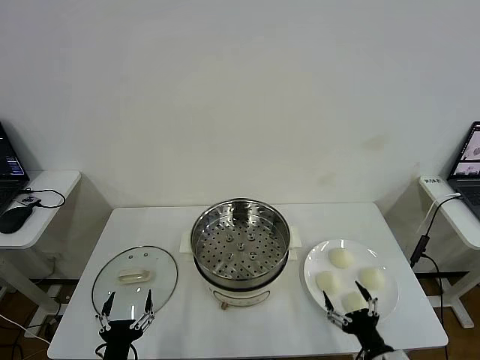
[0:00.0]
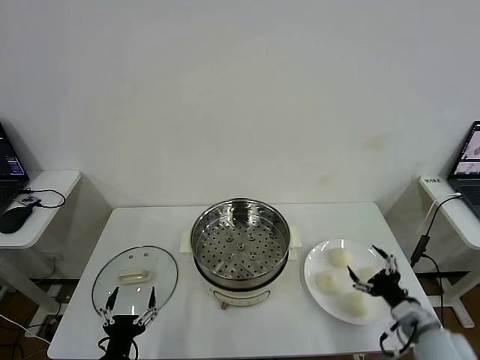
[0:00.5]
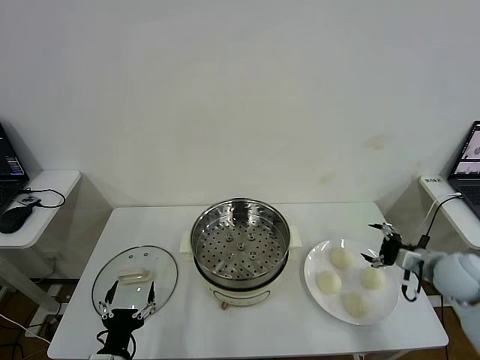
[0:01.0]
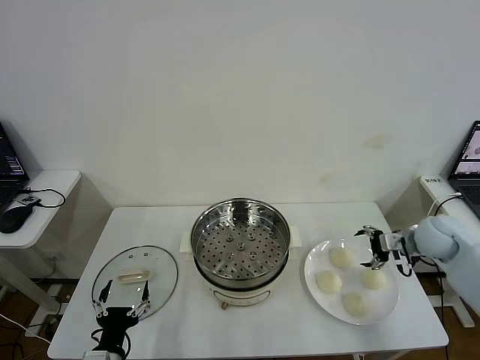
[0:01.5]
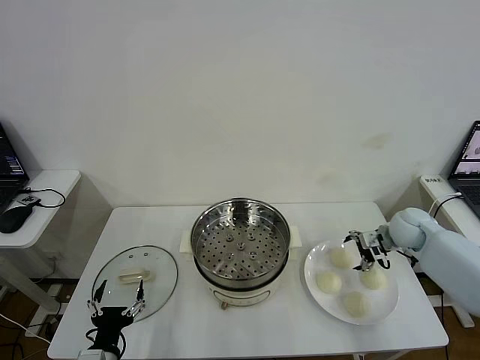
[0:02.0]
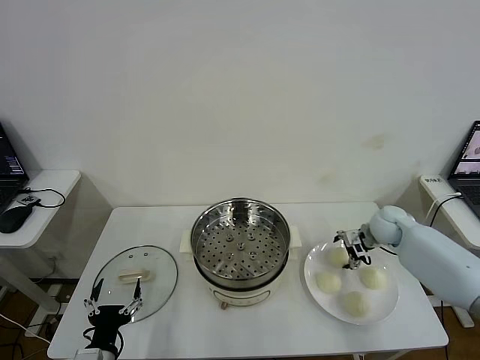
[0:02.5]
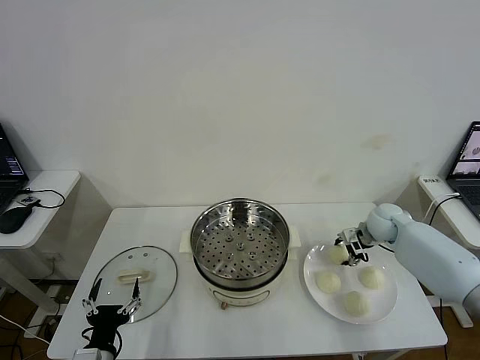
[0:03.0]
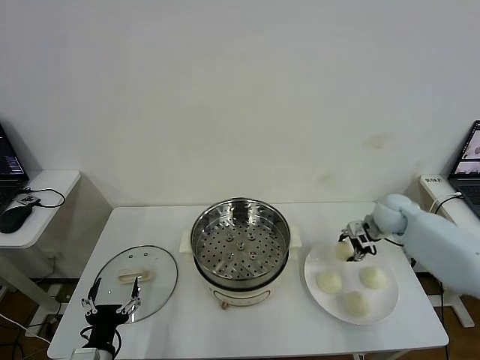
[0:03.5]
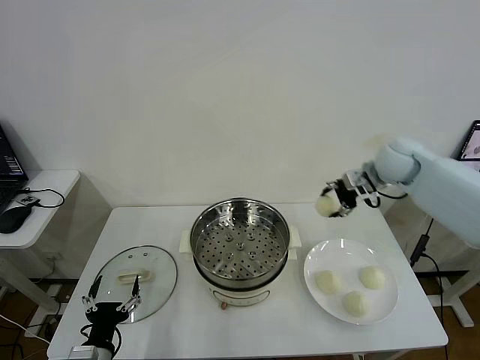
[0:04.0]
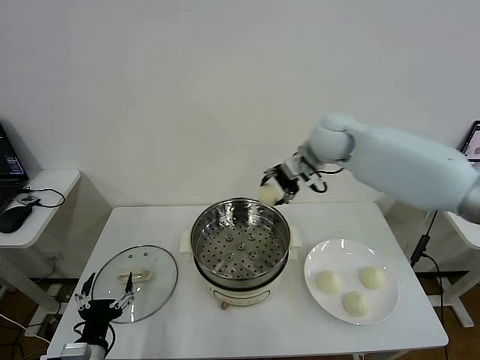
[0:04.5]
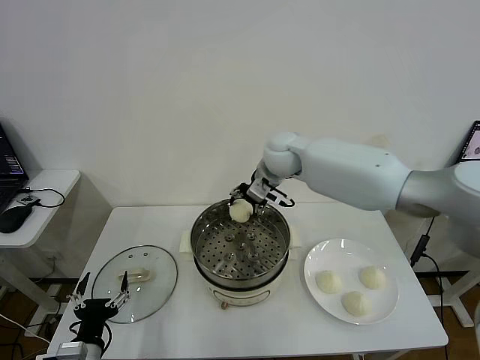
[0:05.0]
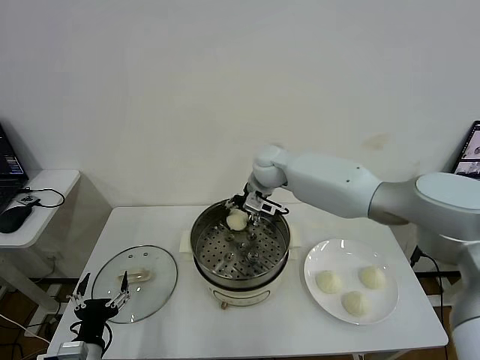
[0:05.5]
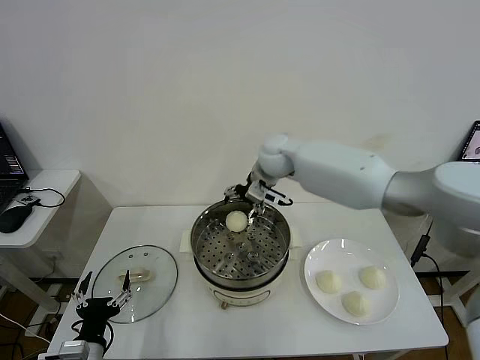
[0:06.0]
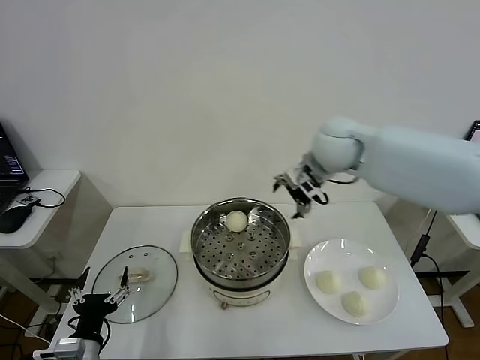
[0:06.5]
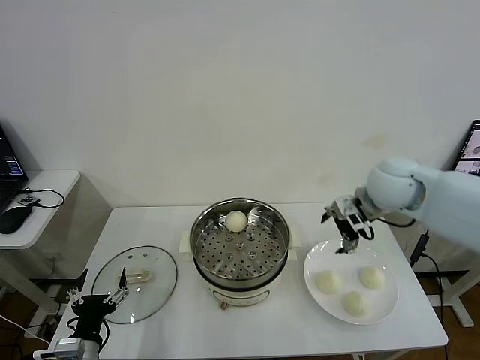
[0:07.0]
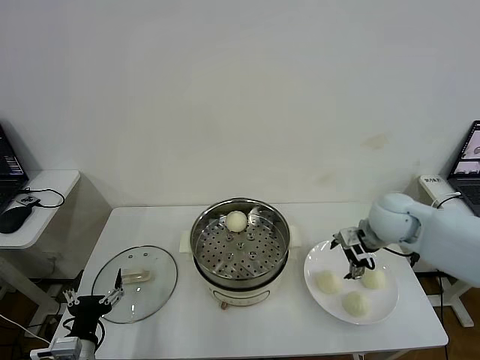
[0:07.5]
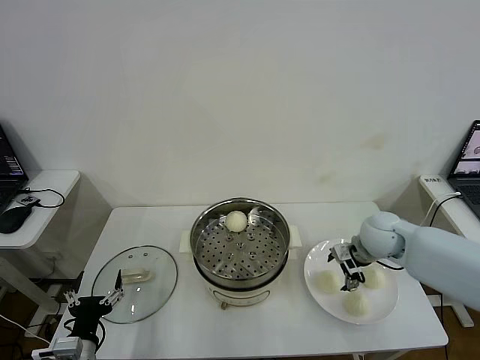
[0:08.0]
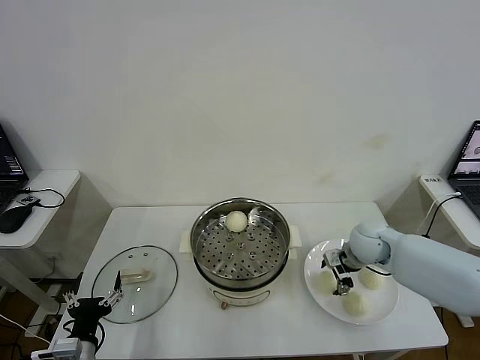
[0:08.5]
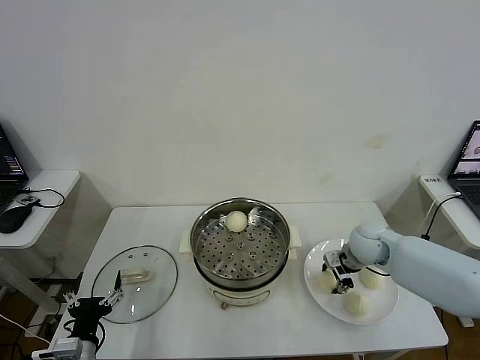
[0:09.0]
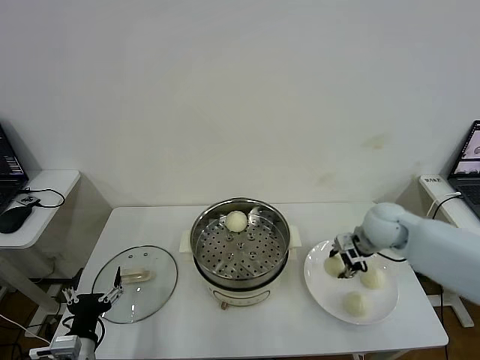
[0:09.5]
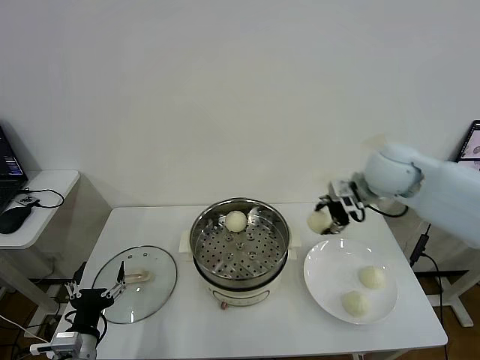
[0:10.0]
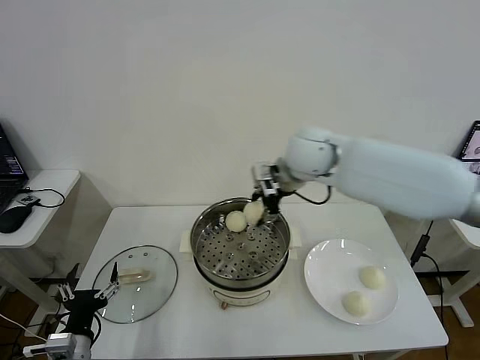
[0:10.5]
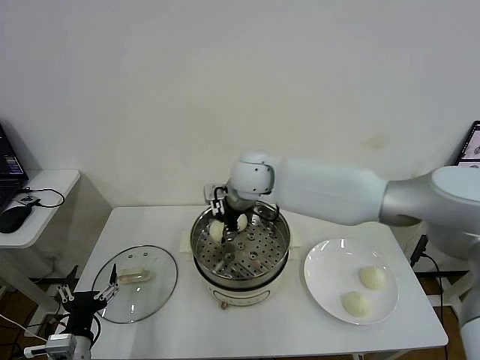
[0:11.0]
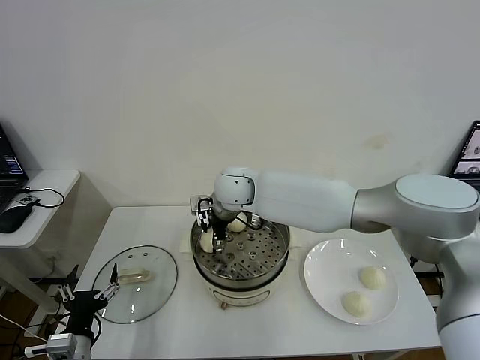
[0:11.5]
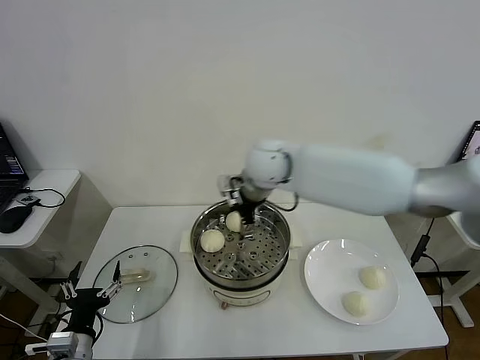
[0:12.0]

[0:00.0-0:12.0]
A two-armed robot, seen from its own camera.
Step, 0:00.0 to 0:03.0: Grasp the baozi in the plate with right gripper.
Step, 0:03.5 to 0:05.5: Place the baozi on the steamer with right gripper.
Step, 0:06.0 to 0:08.5: Grasp the baozi in the plate with right gripper.
Step, 0:09.5 to 0:11.5: Place the baozi on the steamer with right gripper.
0:02.0 to 0:04.0: The right gripper travels upward and to the left by about 20 cm, and closes.
0:04.0 to 0:06.0: The right gripper travels to the left by some 20 cm, and opens.
0:06.0 to 0:08.0: The right gripper shifts about 30 cm to the right, downward and backward.
0:08.0 to 0:10.0: The right gripper moves upward, some 20 cm, and closes its fingers.
0:10.0 to 0:12.0: The right gripper heads to the left, covering approximately 20 cm, and opens.

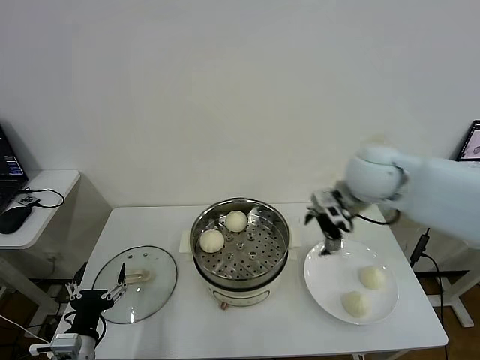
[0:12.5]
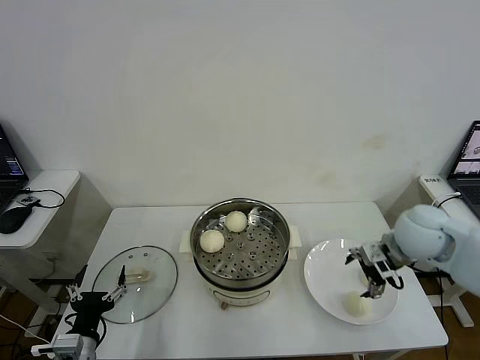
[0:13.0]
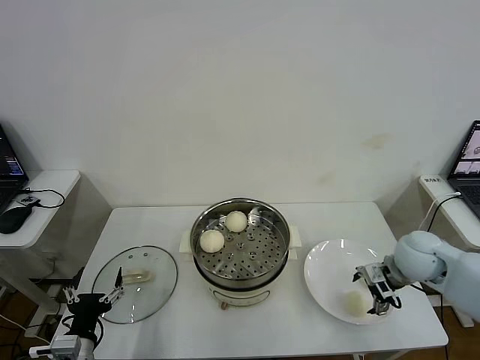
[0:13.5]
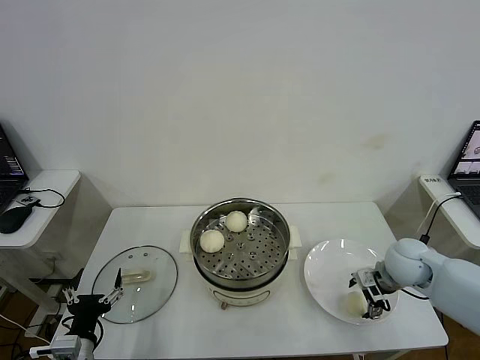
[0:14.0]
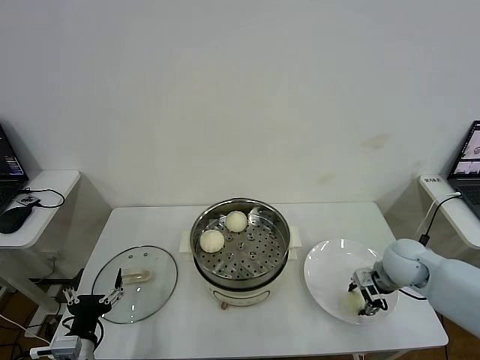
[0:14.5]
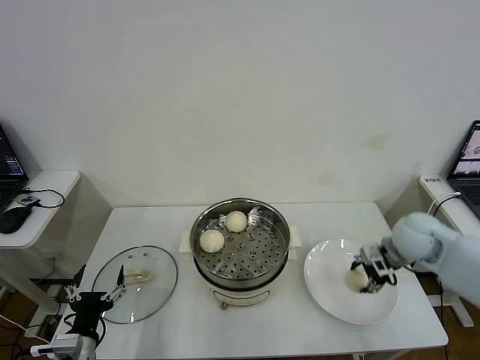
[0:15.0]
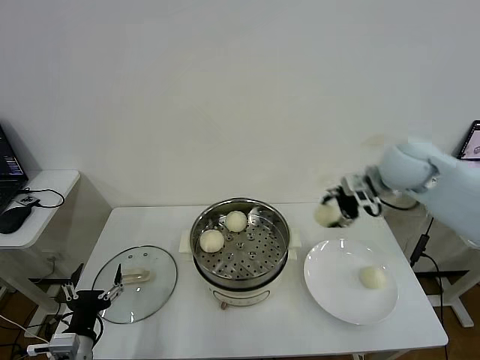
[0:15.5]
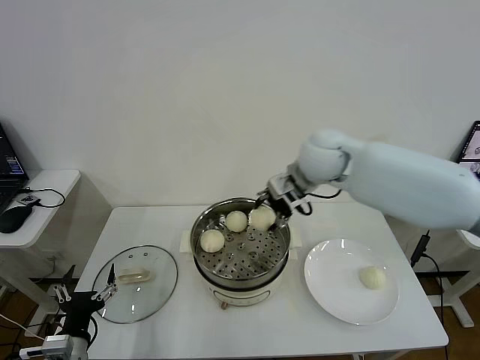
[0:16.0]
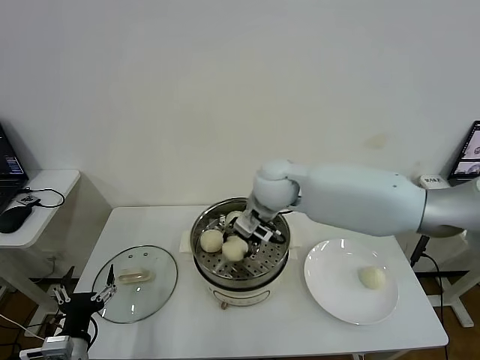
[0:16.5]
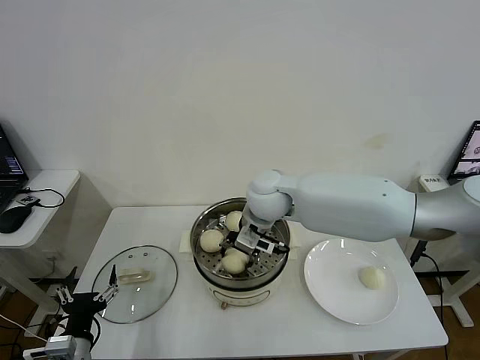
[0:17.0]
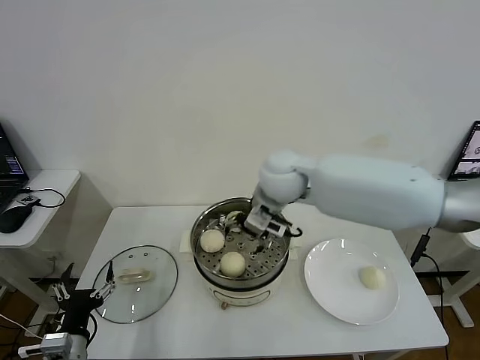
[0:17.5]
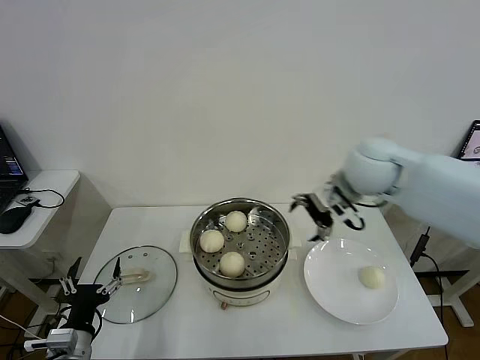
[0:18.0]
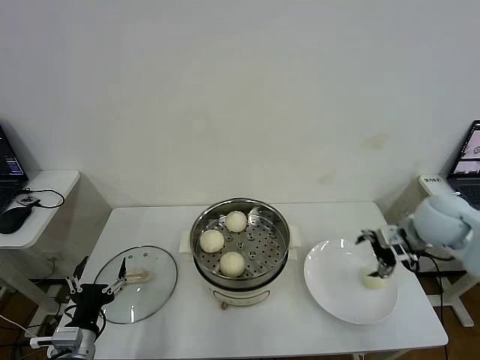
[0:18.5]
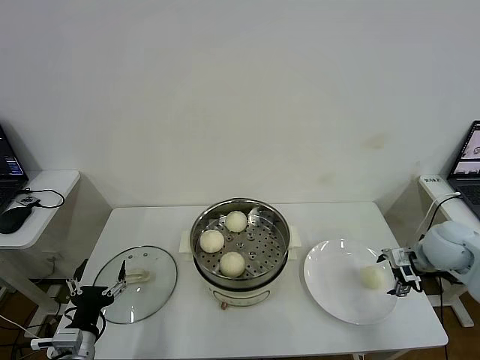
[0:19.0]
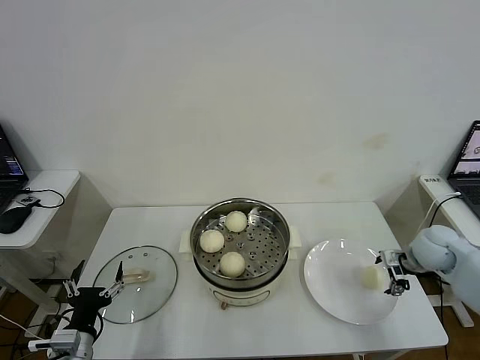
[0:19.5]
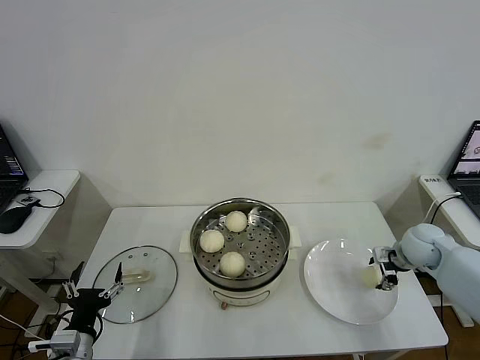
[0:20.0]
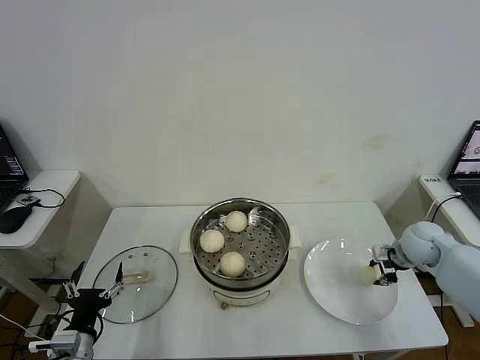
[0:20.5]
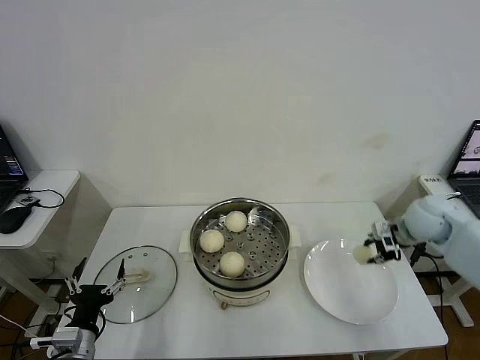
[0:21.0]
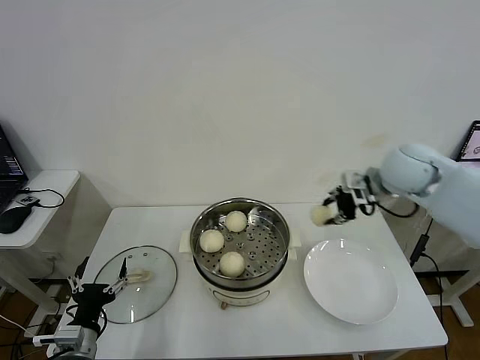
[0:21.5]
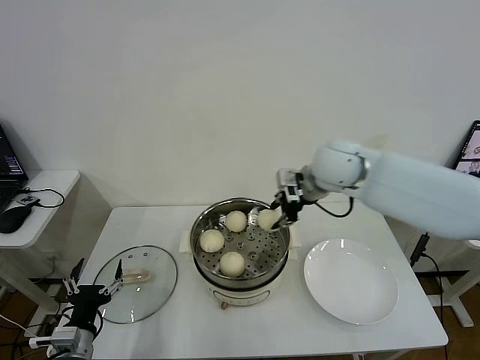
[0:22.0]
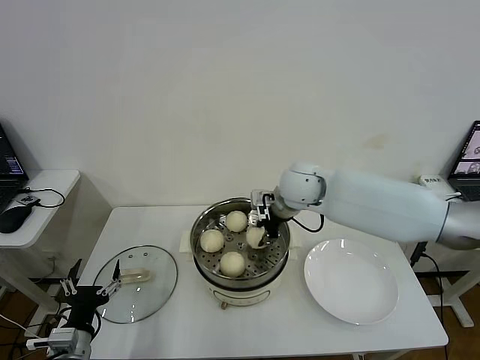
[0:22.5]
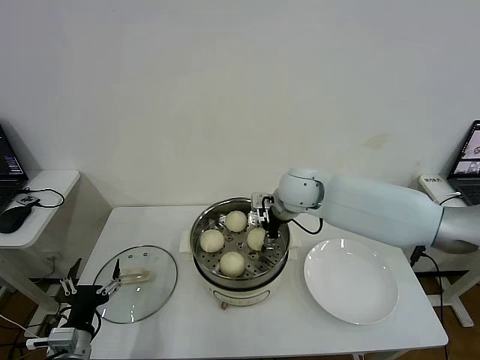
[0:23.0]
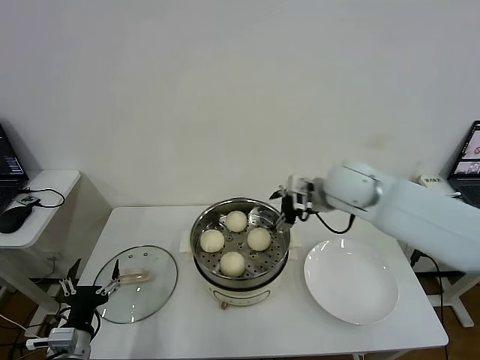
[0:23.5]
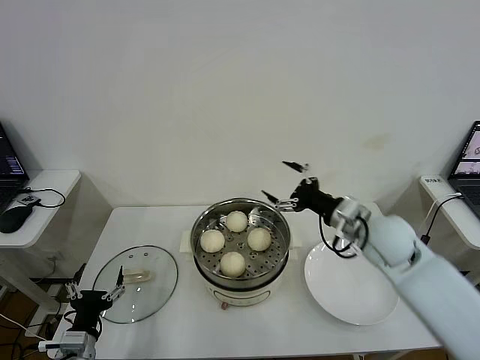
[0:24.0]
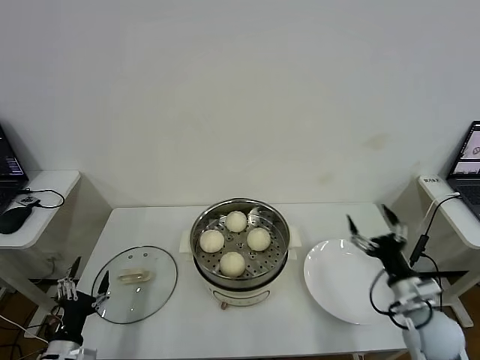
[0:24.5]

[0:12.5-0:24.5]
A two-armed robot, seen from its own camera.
Step, 0:12.5 to 0:14.5: Grasp the baozi in the plate with right gripper.
Step, 0:15.0 to 0:17.0: Place the baozi on the steamer with right gripper.
Step, 0:17.5 to 0:20.5: Grasp the baozi in the plate with right gripper.
Step, 0:21.0 to 0:23.0: Place the baozi on the steamer with right gripper.
0:12.5 to 0:14.5: The right gripper moves downward and to the right, approximately 20 cm, and closes up.
0:14.5 to 0:16.5: The right gripper heads to the left and upward, covering some 35 cm.
0:16.5 to 0:18.5: The right gripper is displaced to the right by some 35 cm, and opens.
0:18.5 to 0:20.5: The right gripper moves downward, some 10 cm, and closes up.
0:20.5 to 0:22.5: The right gripper is displaced to the left and upward by approximately 35 cm.
0:22.5 to 0:24.5: The left gripper shifts by roughly 5 cm; the right gripper travels backward, to the right and downward by some 40 cm, and opens its fingers.

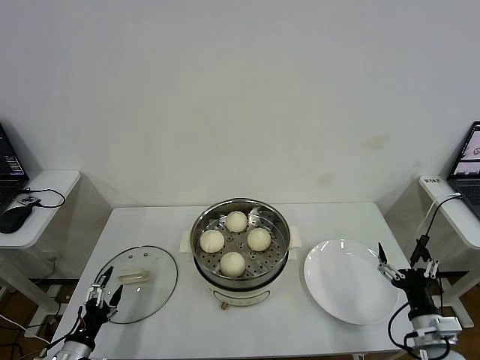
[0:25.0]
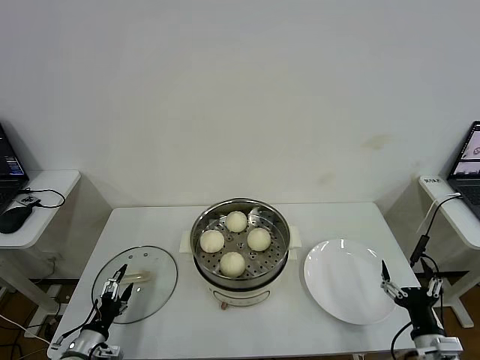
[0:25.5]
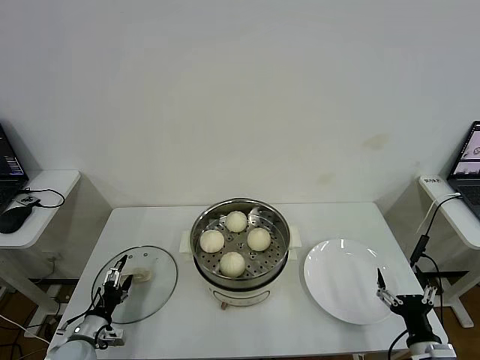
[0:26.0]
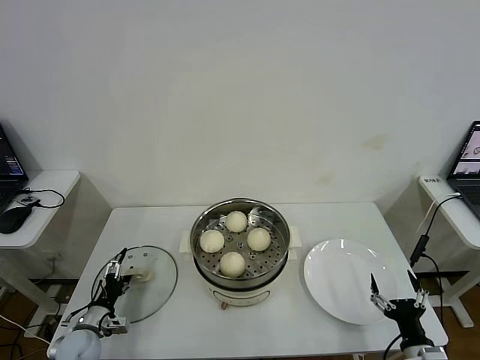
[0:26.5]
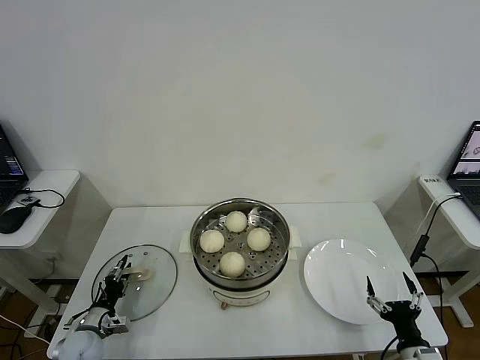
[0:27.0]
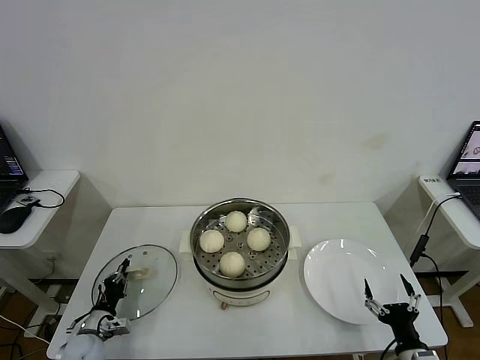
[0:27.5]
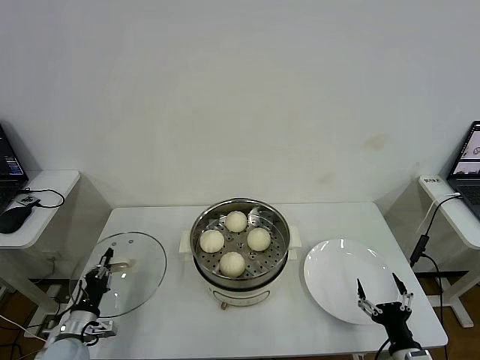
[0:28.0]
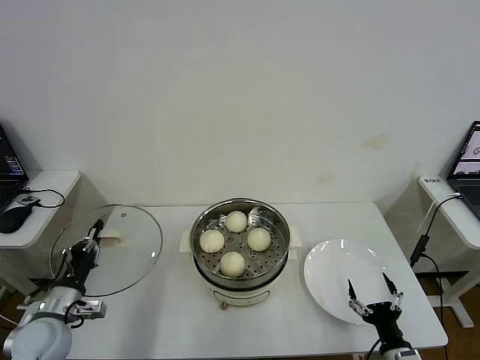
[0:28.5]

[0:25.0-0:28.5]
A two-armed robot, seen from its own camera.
Step, 0:25.0 to 0:27.0: Grasp the baozi in the plate with right gripper.
0:25.0 to 0:27.0: The right gripper is displaced downward by about 5 cm, while the left gripper moves forward and downward, some 10 cm, and closes up.
0:27.0 to 0:28.5: The left gripper heads upward, covering some 15 cm, and closes its fingers.
